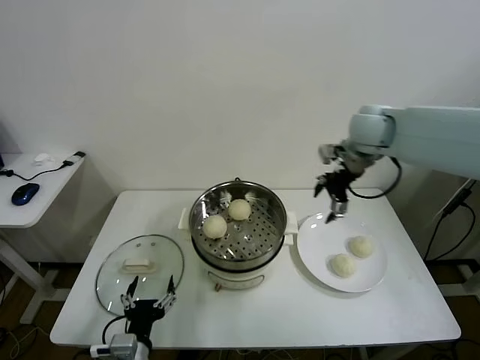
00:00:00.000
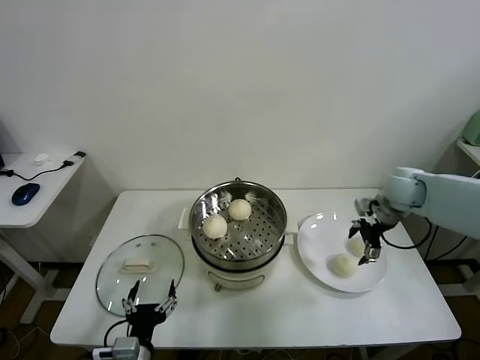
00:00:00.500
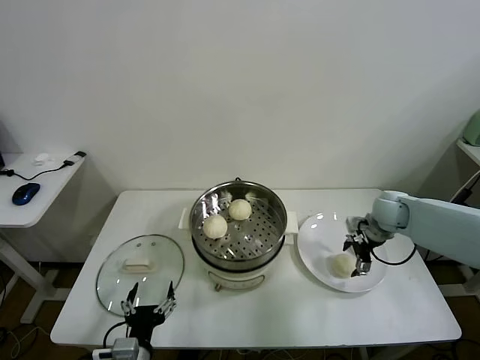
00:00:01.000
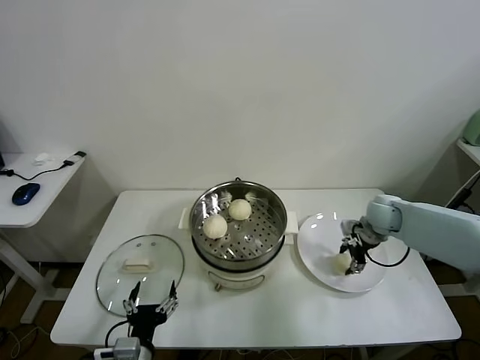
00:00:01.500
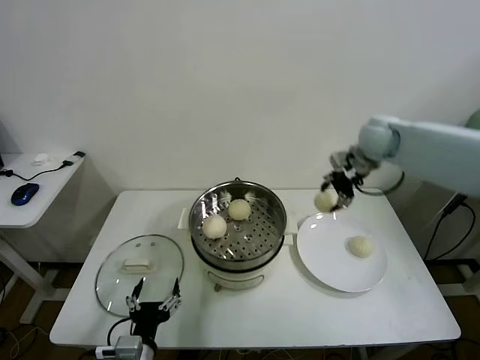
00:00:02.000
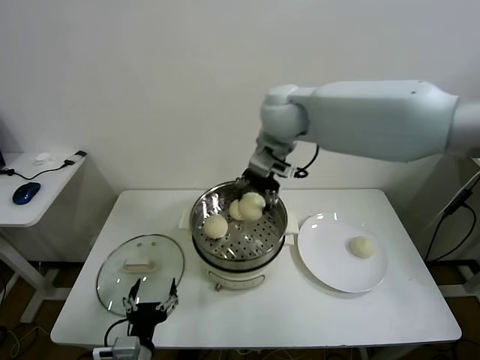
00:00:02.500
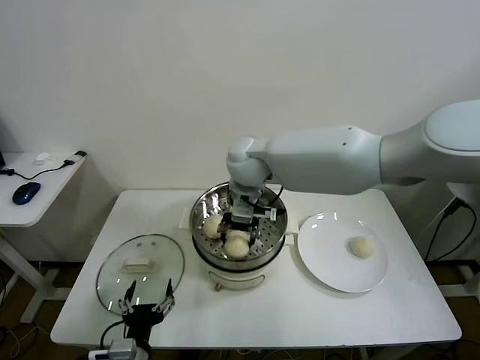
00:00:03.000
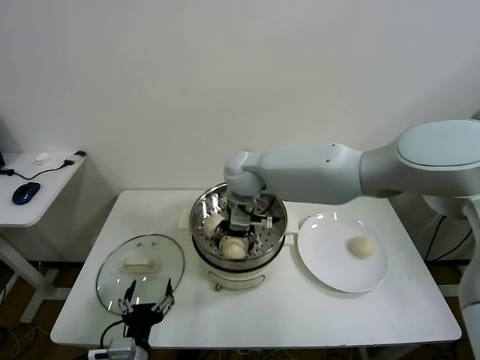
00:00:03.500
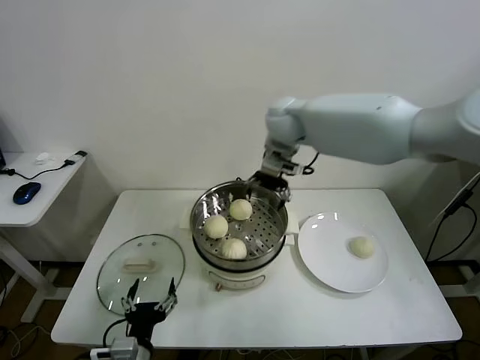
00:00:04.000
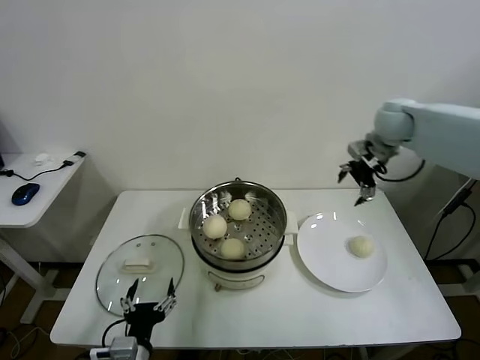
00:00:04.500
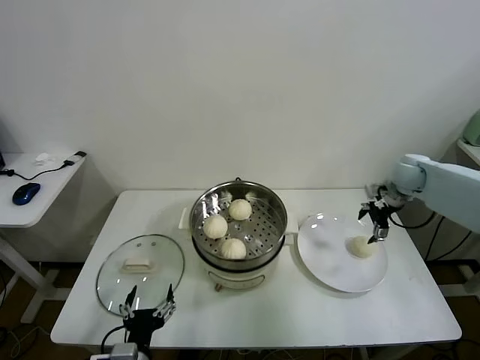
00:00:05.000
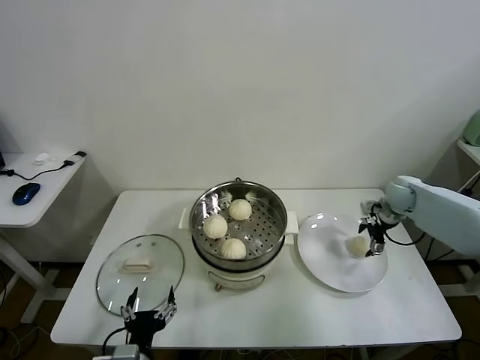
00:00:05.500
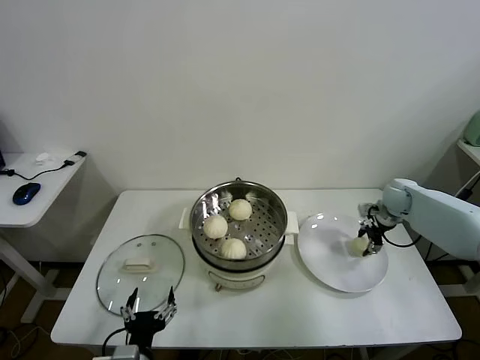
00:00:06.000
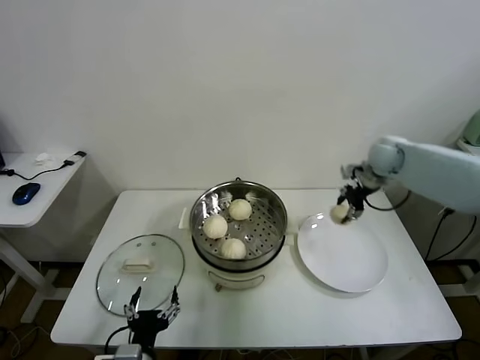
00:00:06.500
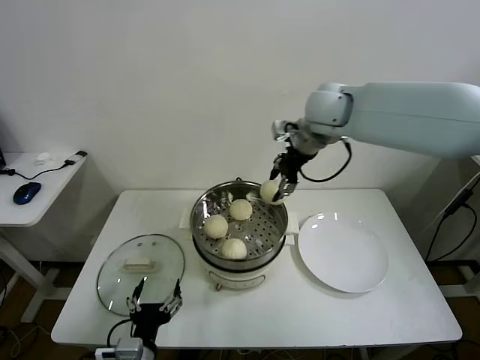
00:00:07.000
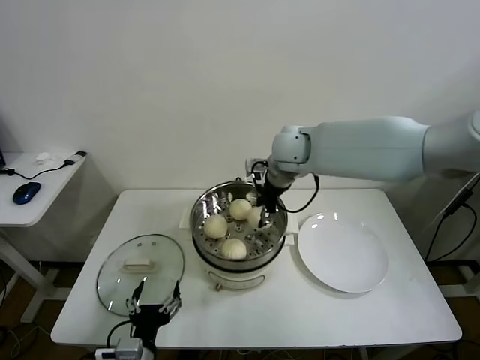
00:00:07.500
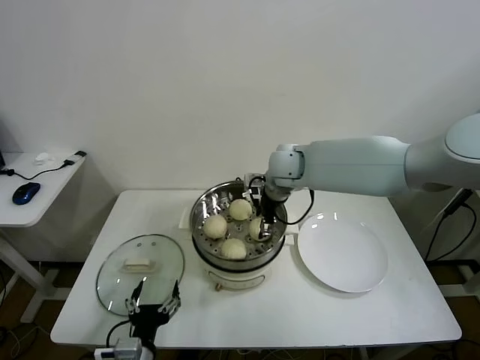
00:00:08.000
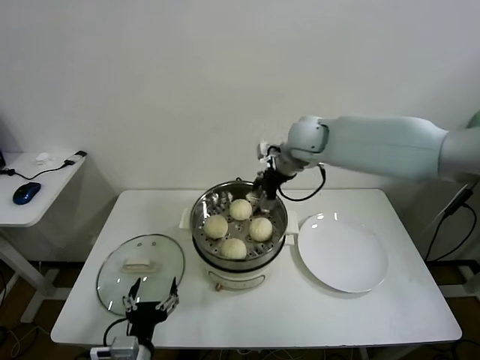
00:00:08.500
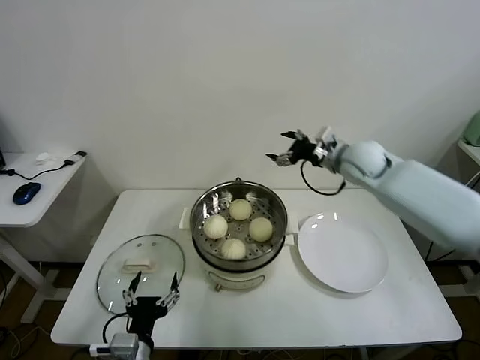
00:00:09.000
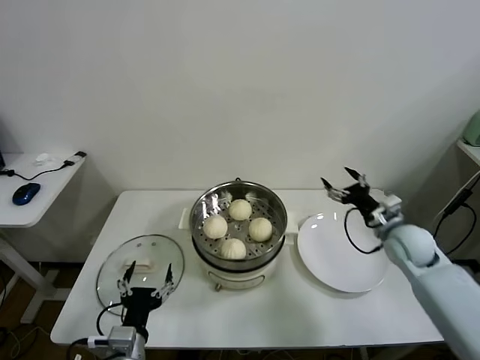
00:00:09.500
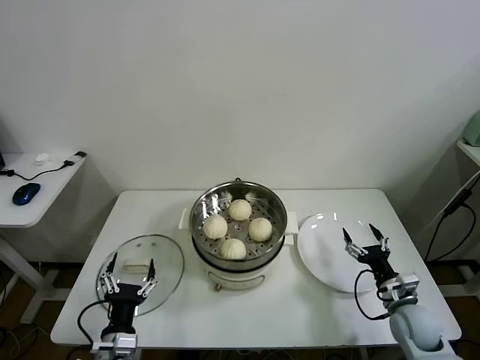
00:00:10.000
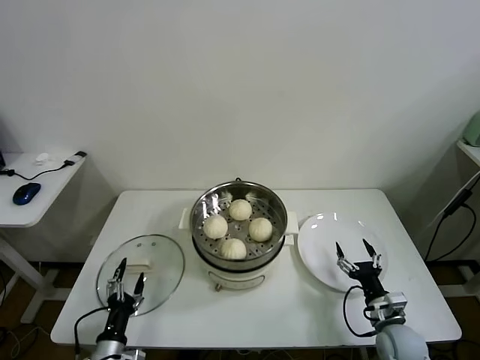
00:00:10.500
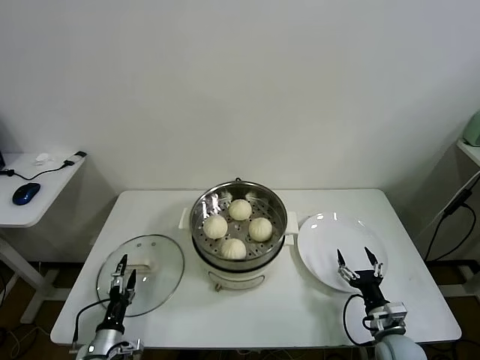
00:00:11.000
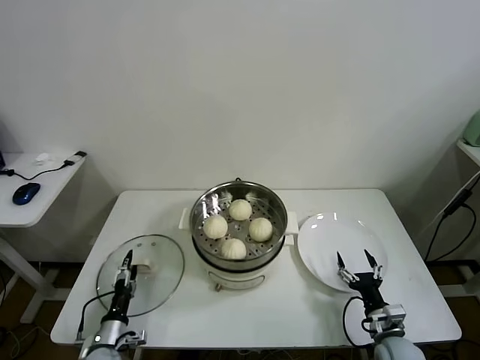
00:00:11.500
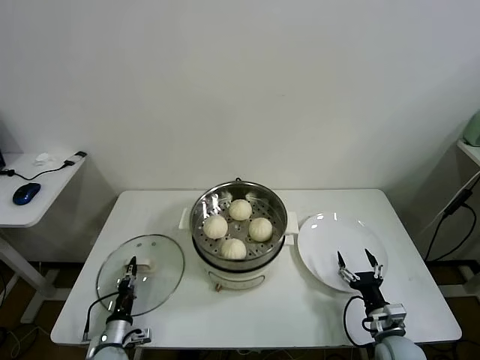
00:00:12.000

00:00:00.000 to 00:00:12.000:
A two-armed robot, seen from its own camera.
Task of the whole recording: take steamed baozi put them in steamer.
Step, 00:00:00.000 to 00:00:01.000: Grasp the baozi in the plate with right gripper.
Step, 00:00:01.500 to 00:00:03.500: Place the baozi on the steamer with right gripper.
Step, 00:00:04.000 to 00:00:05.500: Grasp the baozi in the plate with right gripper.
Step, 00:00:06.000 to 00:00:08.000: Place the baozi on the steamer with right gripper.
00:00:00.000 to 00:00:02.000: The right gripper moves about 25 cm downward and comes back, and closes its fingers.
00:00:02.000 to 00:00:04.000: The right gripper shifts some 20 cm to the left, and opens.
00:00:04.000 to 00:00:06.000: The right gripper shifts approximately 40 cm to the right and downward, and closes its fingers.
00:00:06.000 to 00:00:08.000: The right gripper goes about 35 cm to the left and upward, and opens its fingers.
00:00:08.000 to 00:00:10.000: The left gripper ends up approximately 5 cm from where it was. The right gripper moves to the right, downward and backward, about 50 cm, and opens its fingers.
00:00:10.000 to 00:00:12.000: The right gripper moves downward and backward, roughly 10 cm. The left gripper is displaced downward, to the left and forward by approximately 20 cm, and closes.

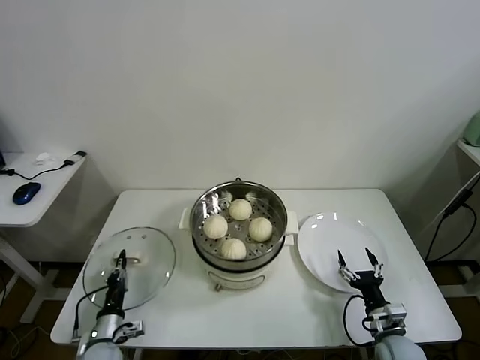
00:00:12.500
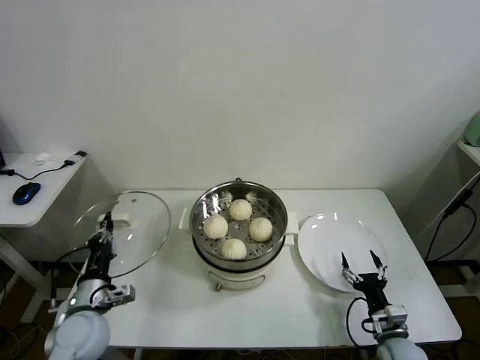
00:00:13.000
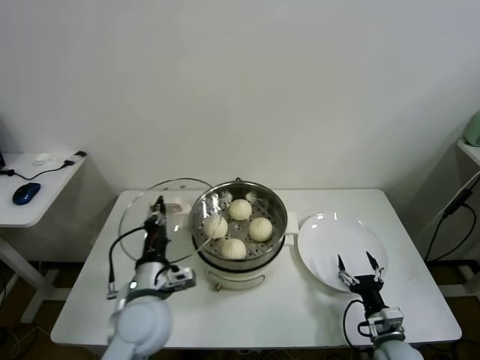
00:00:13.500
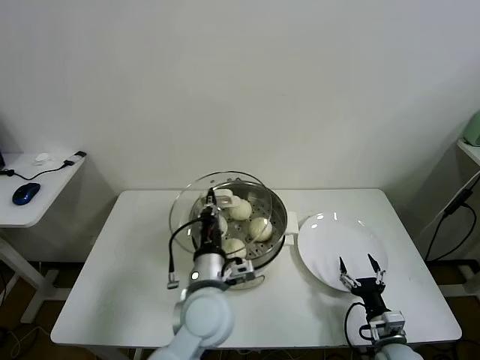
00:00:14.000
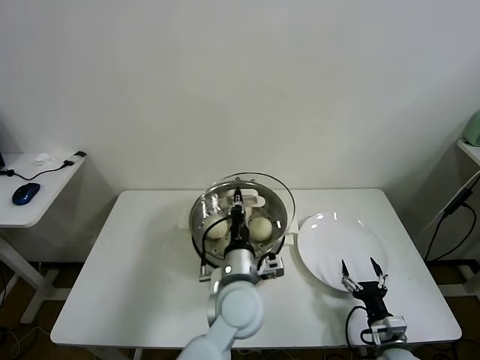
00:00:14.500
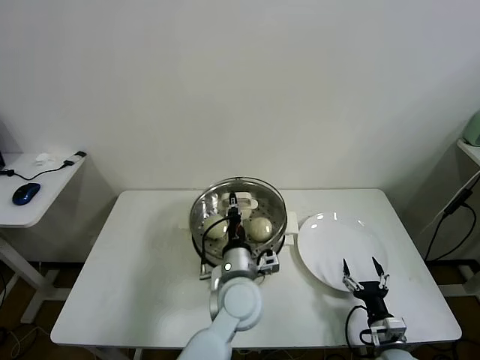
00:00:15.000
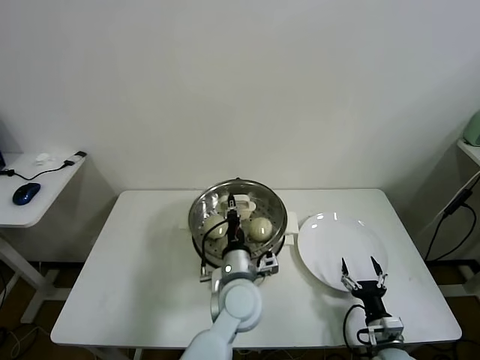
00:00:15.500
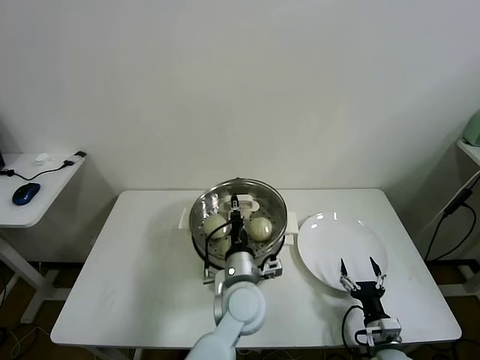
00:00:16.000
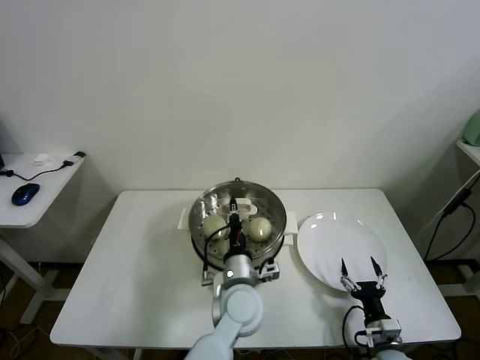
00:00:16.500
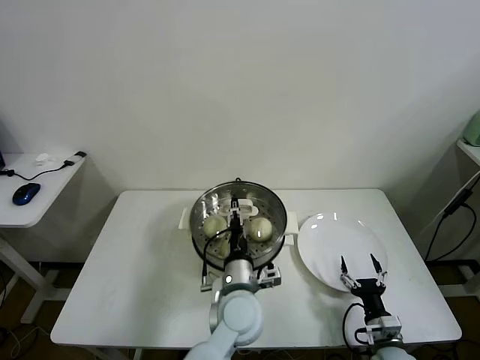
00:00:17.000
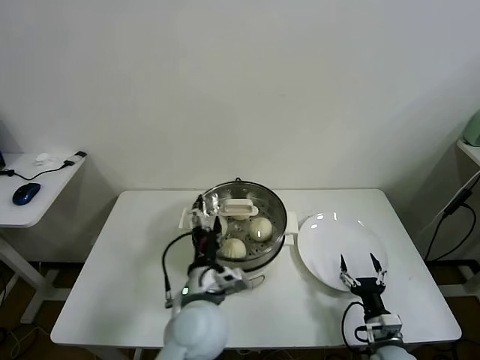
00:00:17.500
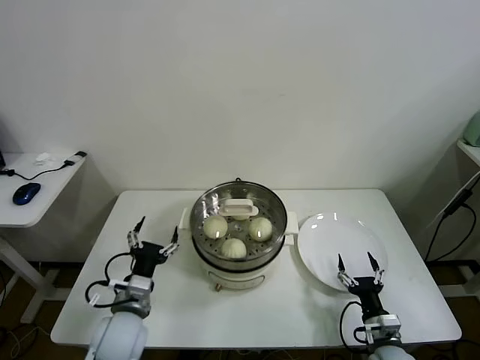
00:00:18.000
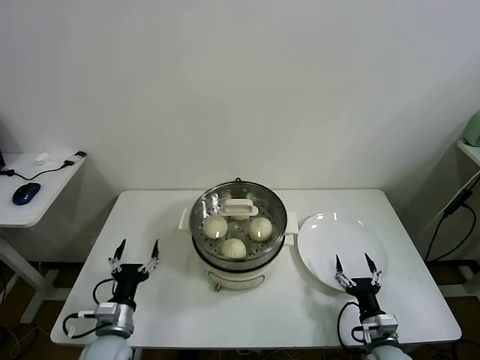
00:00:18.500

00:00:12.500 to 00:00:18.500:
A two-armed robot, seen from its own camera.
Task of the whole recording: take steamed baozi put them in steamer.
Step, 00:00:12.500 to 00:00:17.000: Place the pot lid on the steamer with left gripper.
00:00:12.500 to 00:00:14.500: The left gripper moves to the right and upward, approximately 40 cm.
00:00:14.500 to 00:00:16.500: The left gripper travels downward by about 5 cm.
00:00:16.500 to 00:00:18.500: The left gripper is displaced to the left by roughly 30 cm, and opens.

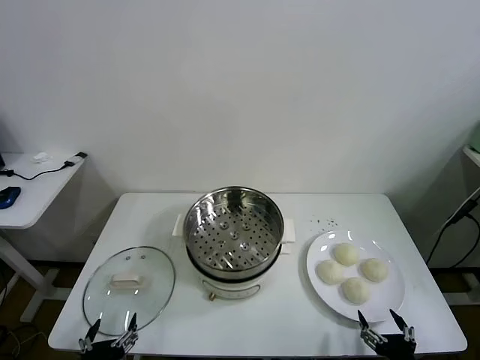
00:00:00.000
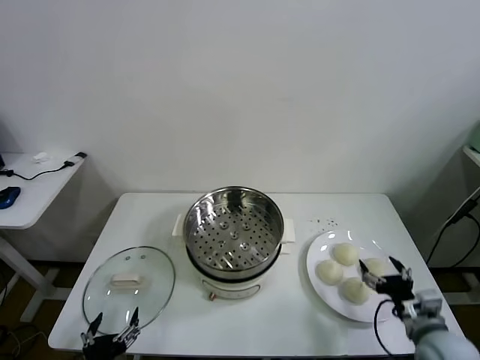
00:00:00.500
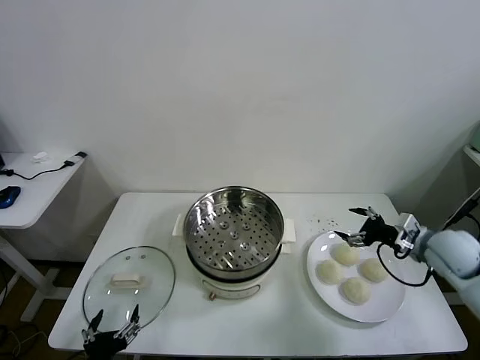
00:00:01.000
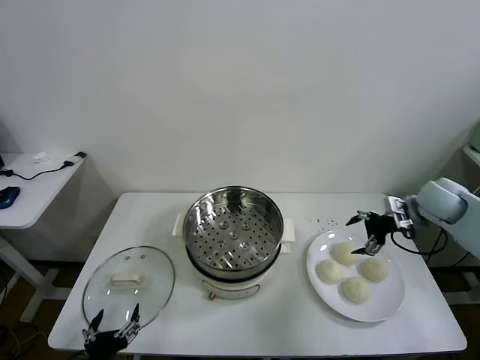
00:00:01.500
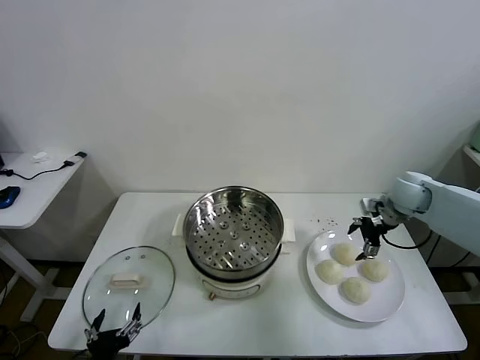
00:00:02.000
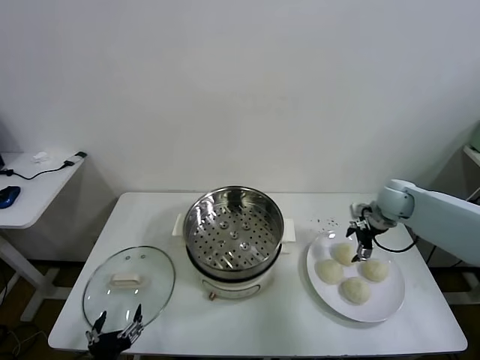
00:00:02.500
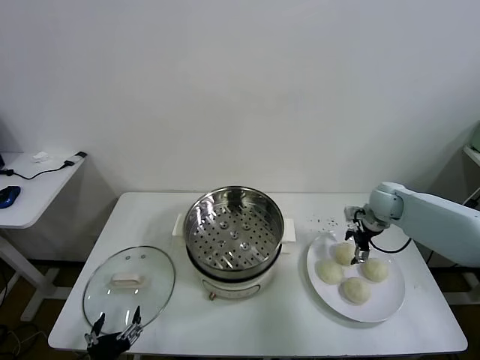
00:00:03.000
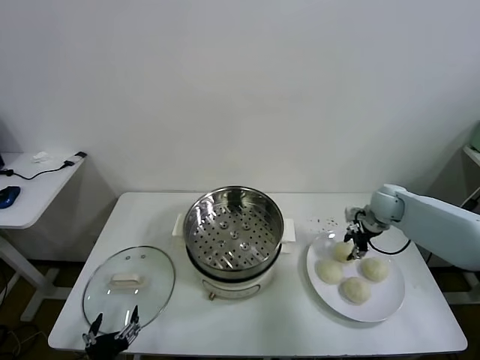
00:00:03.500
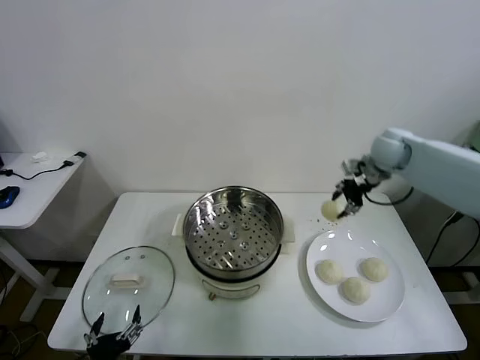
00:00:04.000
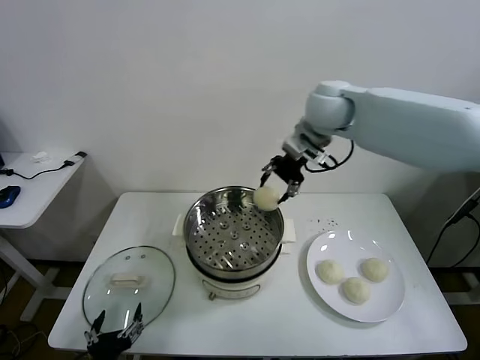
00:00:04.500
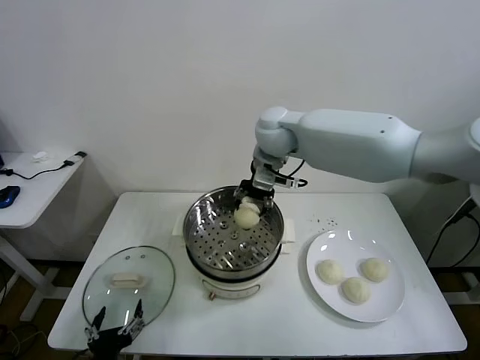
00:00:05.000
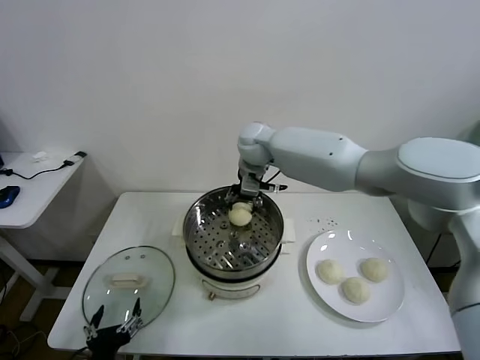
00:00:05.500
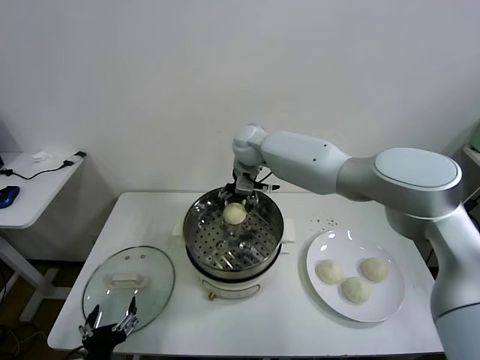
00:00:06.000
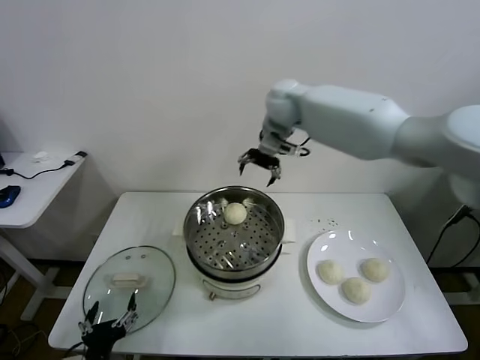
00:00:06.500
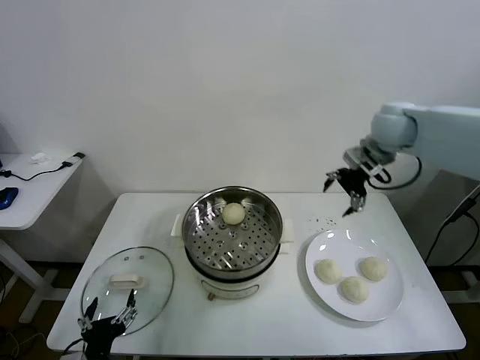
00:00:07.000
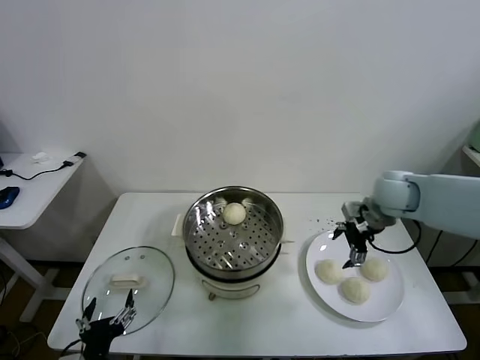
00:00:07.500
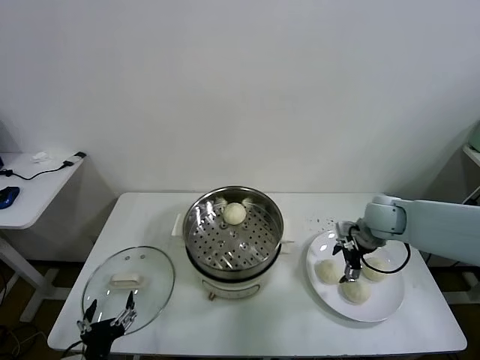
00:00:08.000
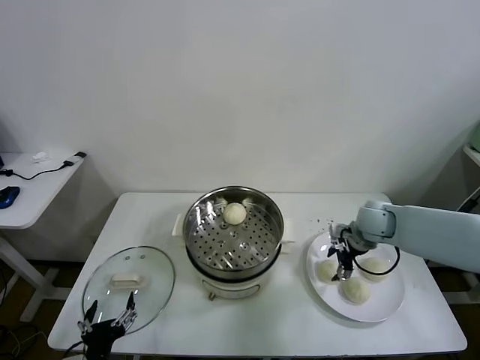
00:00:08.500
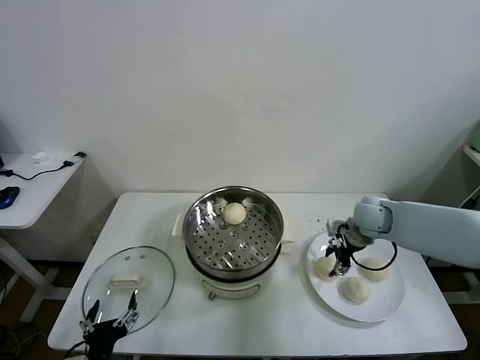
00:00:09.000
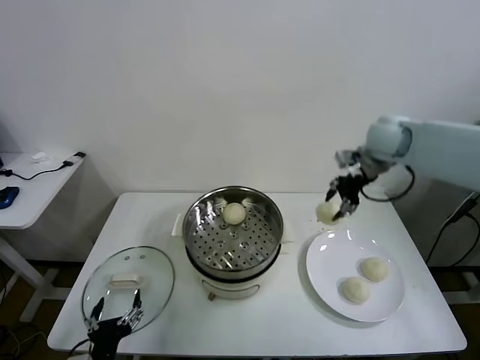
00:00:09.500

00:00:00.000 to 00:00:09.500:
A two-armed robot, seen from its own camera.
Task of the whole recording: take steamed baozi put them in steamer.
Step, 00:00:00.000 to 00:00:03.000: Grasp the baozi in the plate with right gripper.
Step, 00:00:03.500 to 00:00:06.000: Place the baozi on the steamer with right gripper.
Step, 00:00:06.500 to 00:00:08.500: Grasp the baozi in the plate with right gripper.
00:00:02.000 to 00:00:04.000: The right gripper travels upward, to the left and forward by about 15 cm, and closes.
00:00:04.000 to 00:00:05.500: The right gripper is displaced to the left by some 30 cm.
00:00:05.500 to 00:00:07.500: The right gripper travels to the right by approximately 30 cm, and opens.
00:00:07.500 to 00:00:09.500: The right gripper moves upward and forward, approximately 15 cm, and closes.
